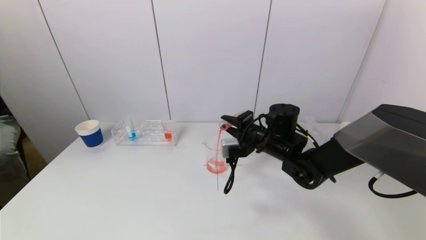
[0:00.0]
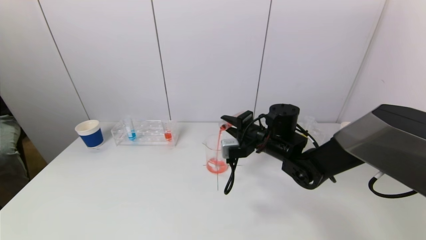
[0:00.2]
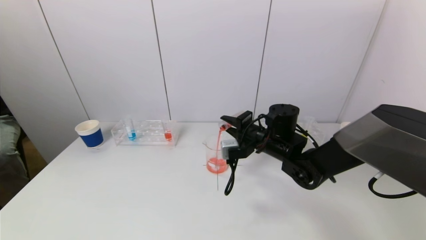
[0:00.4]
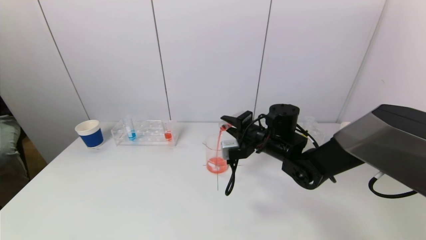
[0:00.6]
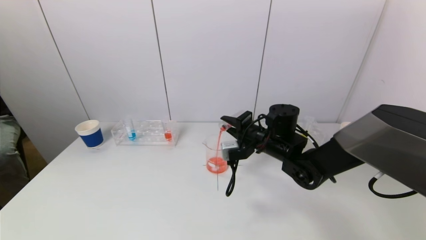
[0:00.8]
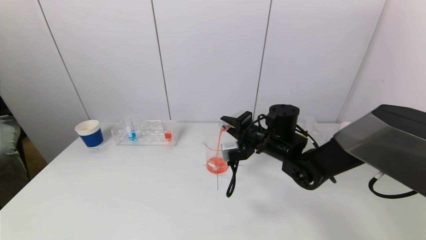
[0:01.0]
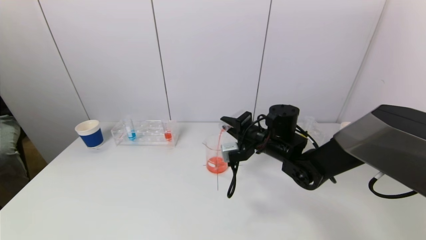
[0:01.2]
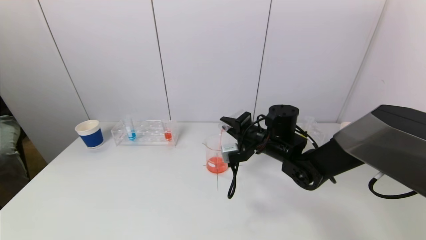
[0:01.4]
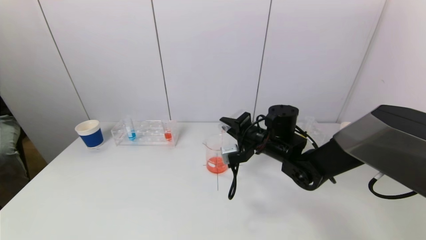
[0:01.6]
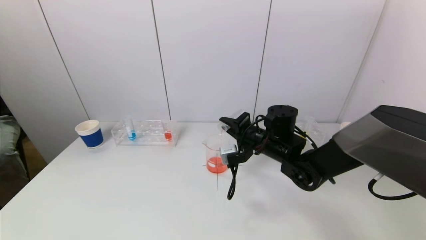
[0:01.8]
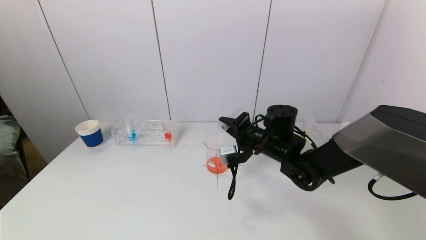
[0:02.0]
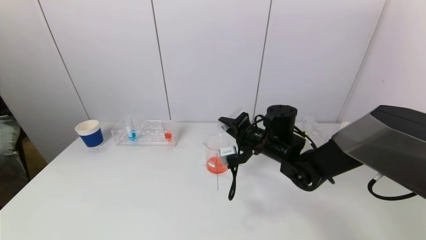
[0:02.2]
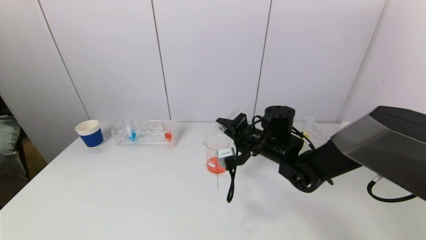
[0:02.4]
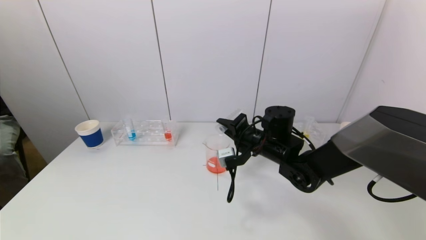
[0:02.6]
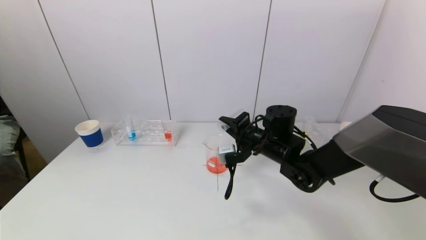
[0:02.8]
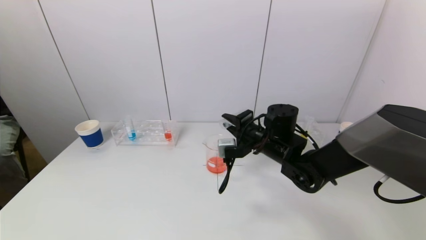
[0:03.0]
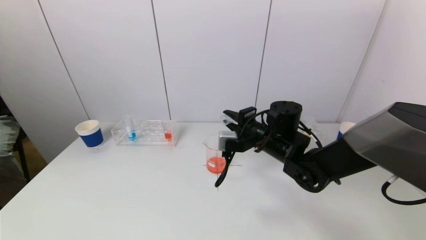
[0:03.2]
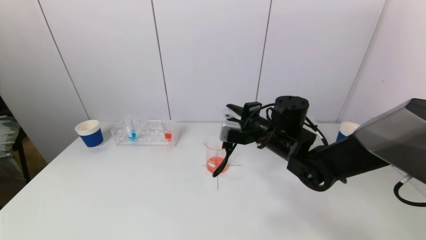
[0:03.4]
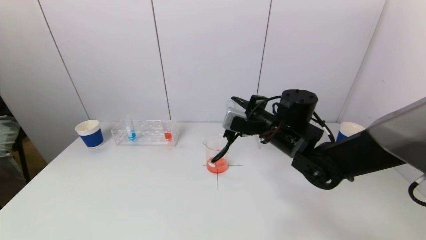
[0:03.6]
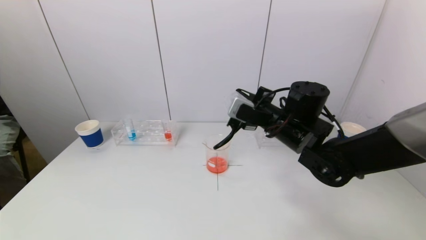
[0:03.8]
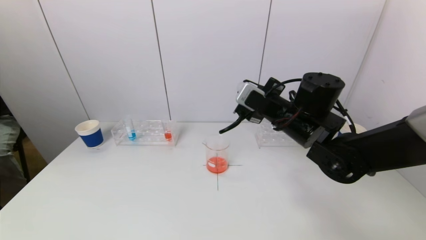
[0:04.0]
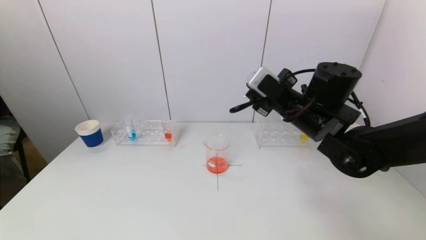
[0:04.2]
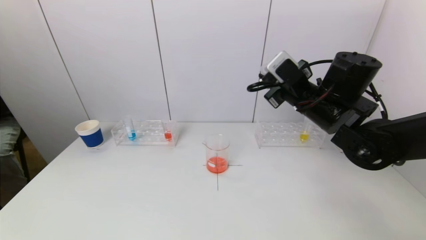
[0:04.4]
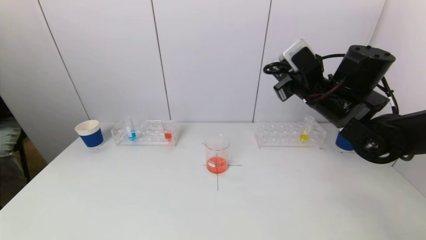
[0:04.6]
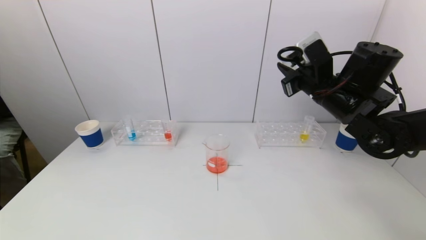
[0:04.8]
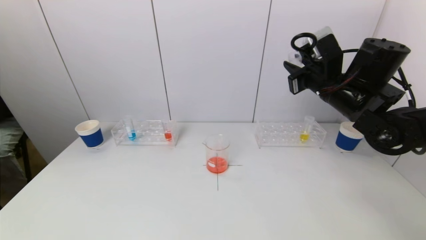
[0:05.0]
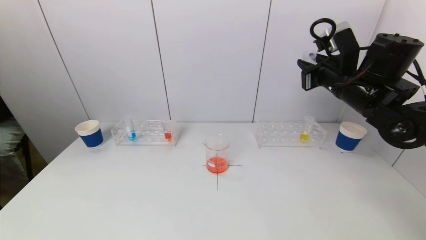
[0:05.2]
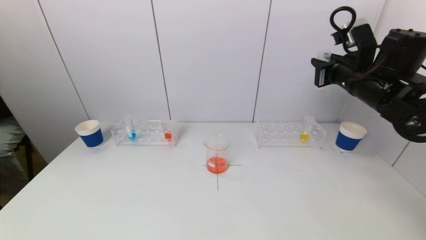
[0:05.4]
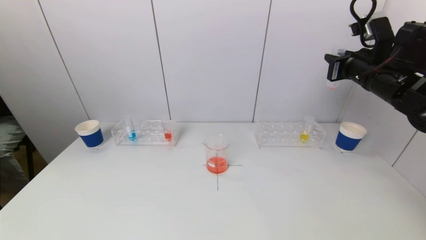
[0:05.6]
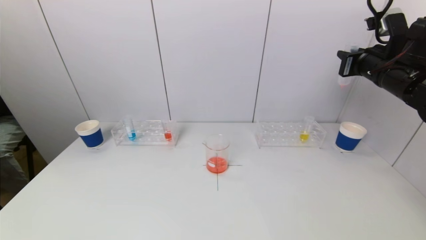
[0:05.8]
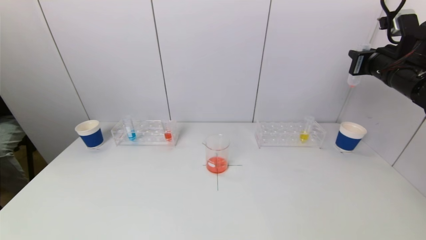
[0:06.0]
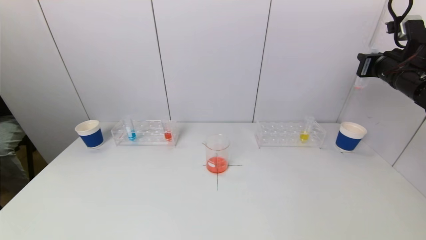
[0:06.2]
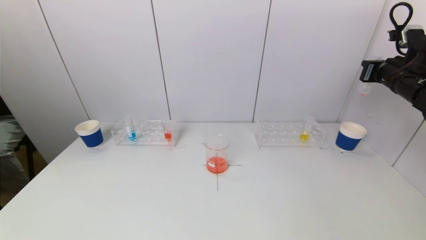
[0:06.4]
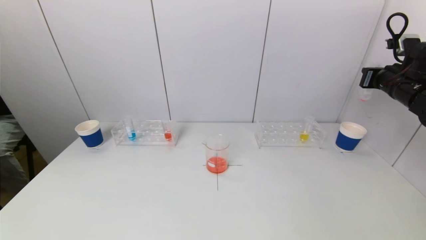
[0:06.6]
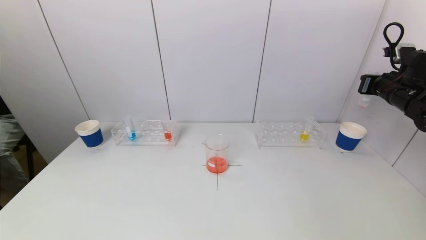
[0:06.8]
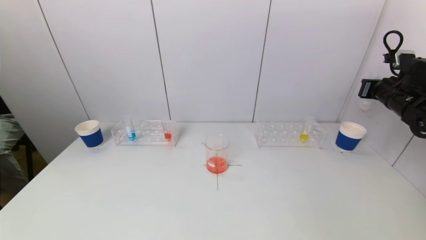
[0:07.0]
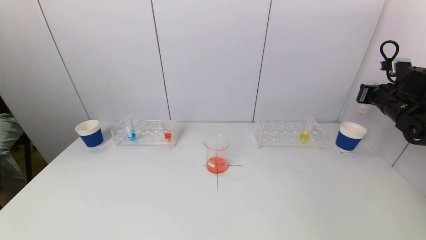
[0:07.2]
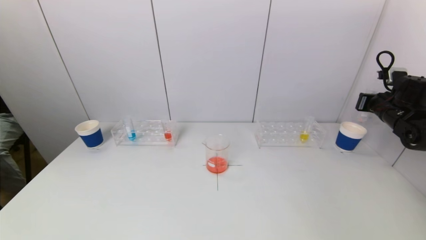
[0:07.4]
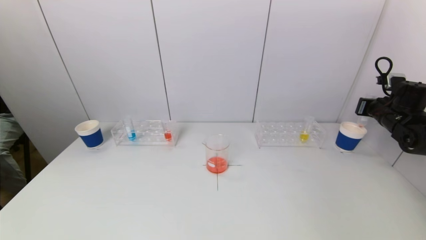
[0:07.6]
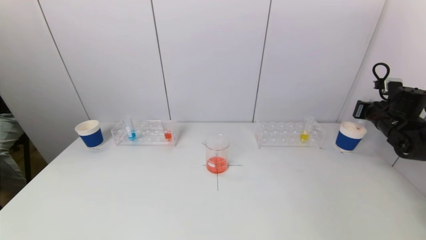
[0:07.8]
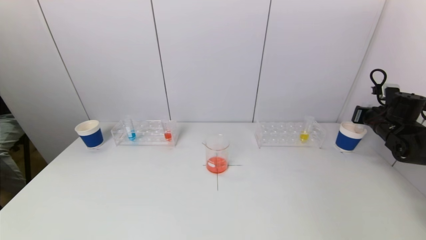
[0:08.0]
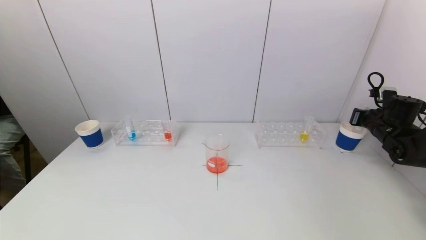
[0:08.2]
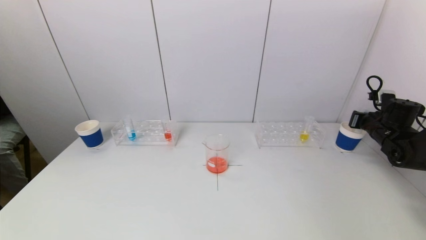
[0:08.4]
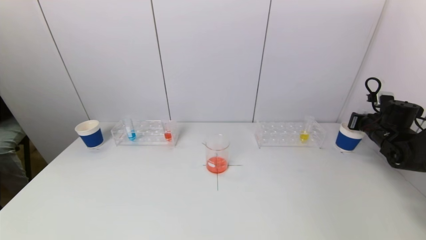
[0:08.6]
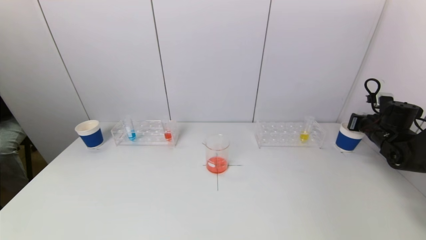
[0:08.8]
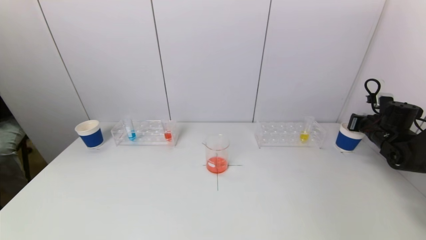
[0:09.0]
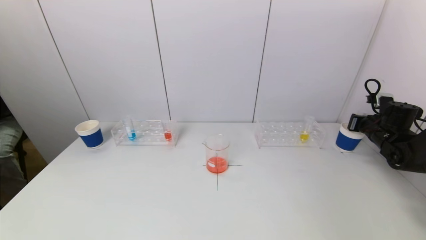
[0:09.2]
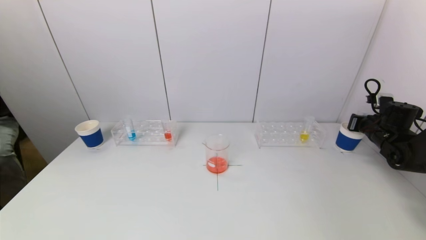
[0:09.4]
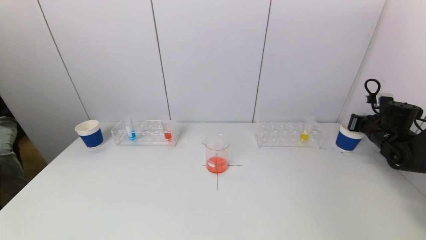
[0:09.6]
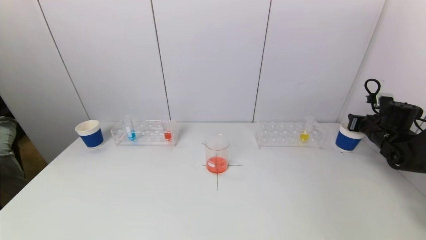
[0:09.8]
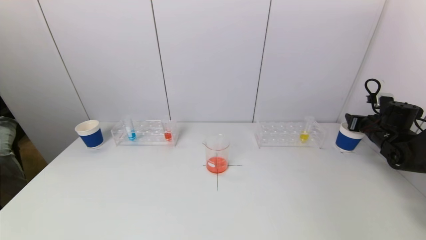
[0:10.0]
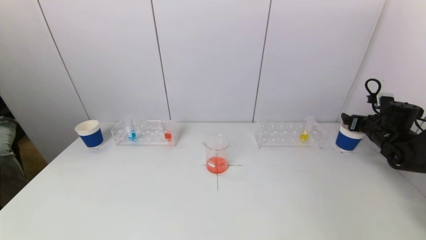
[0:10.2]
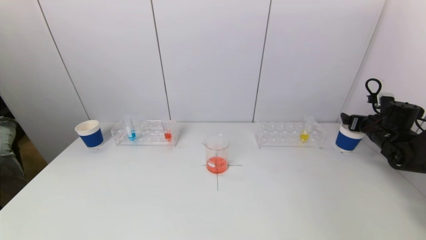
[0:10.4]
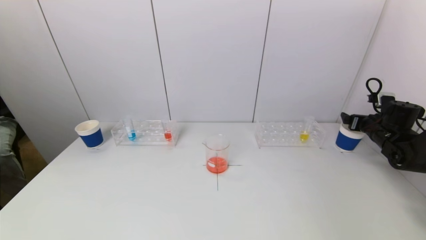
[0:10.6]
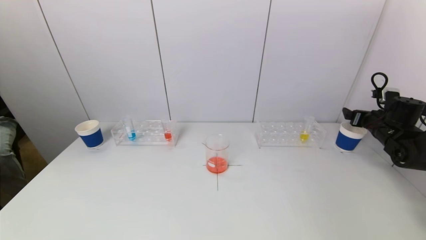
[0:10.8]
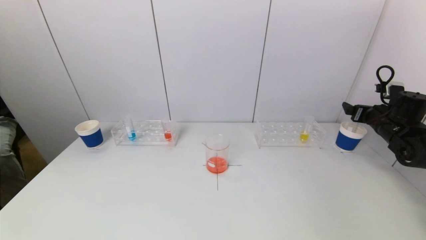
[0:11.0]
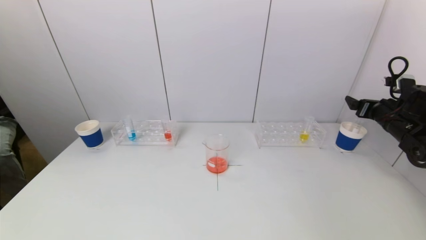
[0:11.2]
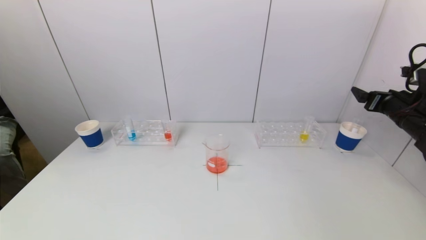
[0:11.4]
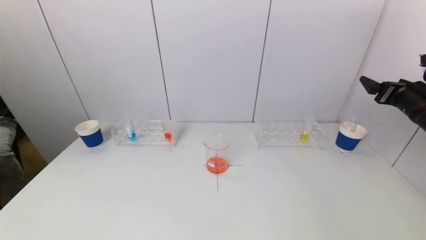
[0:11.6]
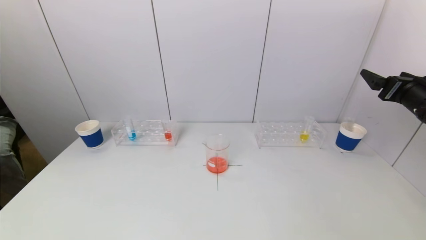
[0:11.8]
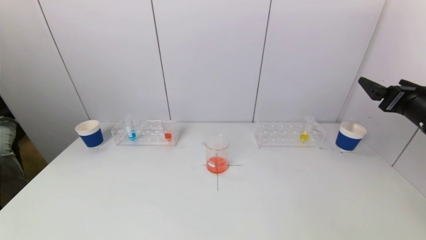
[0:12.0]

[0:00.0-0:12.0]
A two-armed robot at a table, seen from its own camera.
Task of the whole recording: pick up a test tube with pigment on left test tube rack and a test tube with pigment on right test tube rack by grippers and pour them into the beaker.
Step, 0:00.0 to 0:02.6: Pour the red reagent into the graduated cylinder with the right gripper.
Step, 0:02.8 to 0:10.6: Place the test tube into the paper cup with the right gripper.
0:00.0 to 0:03.0: The grippers stay close to where they were, moving slightly.
0:03.0 to 0:04.4: The right gripper heads upward and to the right, covering about 15 cm.
0:04.4 to 0:06.0: The right gripper goes about 15 cm to the right.
0:06.0 to 0:07.6: The right gripper goes about 15 cm downward and to the right.
0:07.6 to 0:09.0: The right gripper goes approximately 5 cm downward.
0:10.4 to 0:12.0: The right gripper shifts some 20 cm backward, upward and to the left.

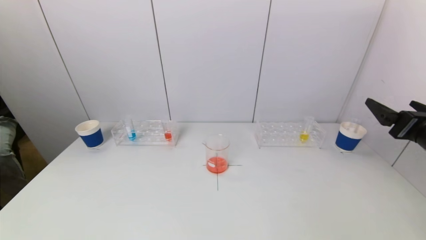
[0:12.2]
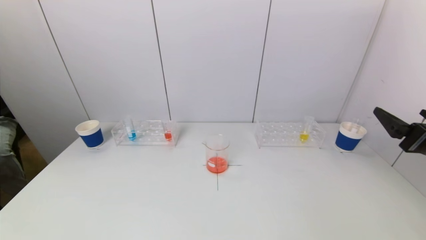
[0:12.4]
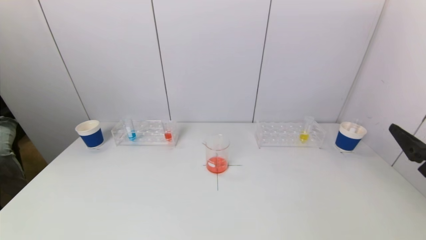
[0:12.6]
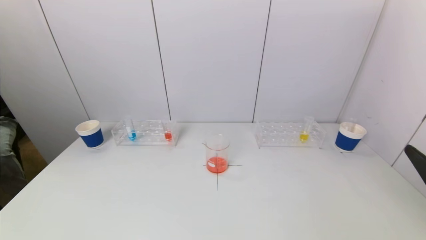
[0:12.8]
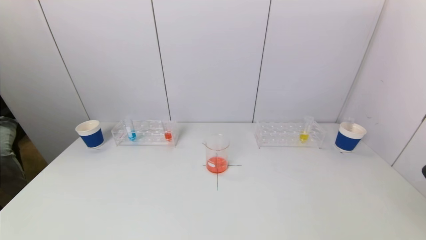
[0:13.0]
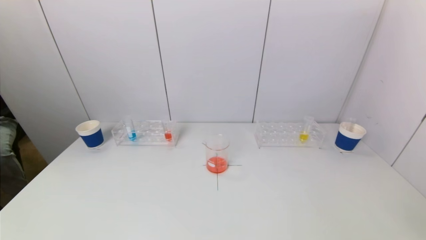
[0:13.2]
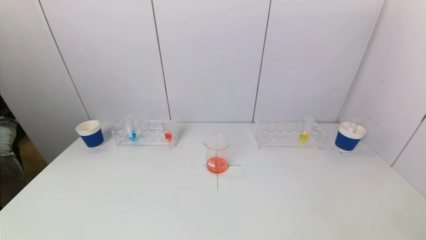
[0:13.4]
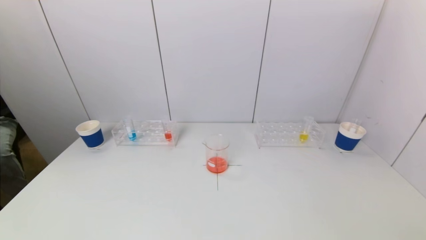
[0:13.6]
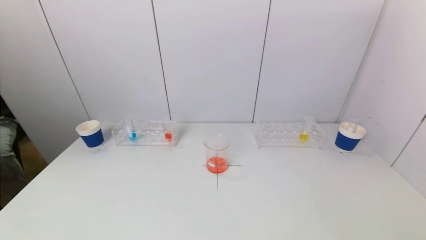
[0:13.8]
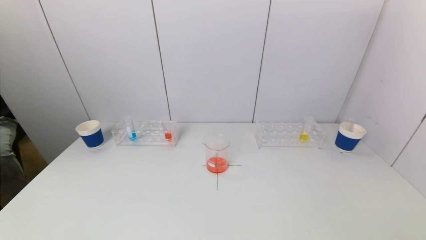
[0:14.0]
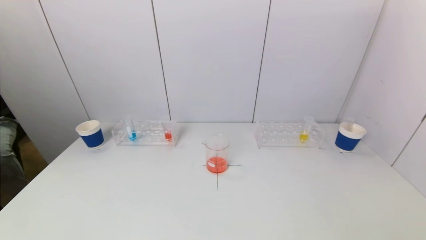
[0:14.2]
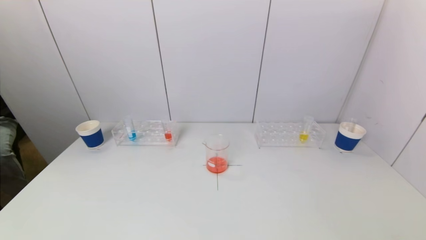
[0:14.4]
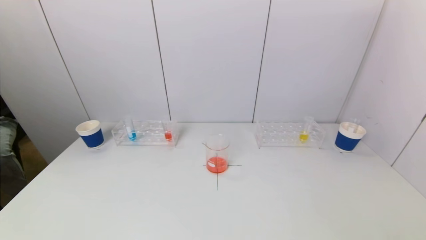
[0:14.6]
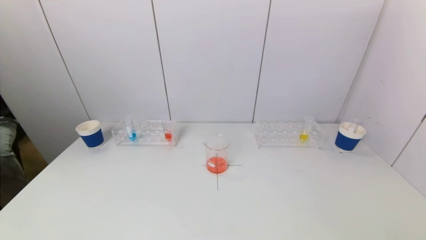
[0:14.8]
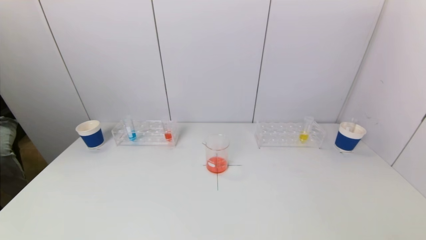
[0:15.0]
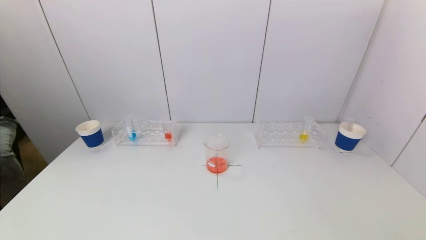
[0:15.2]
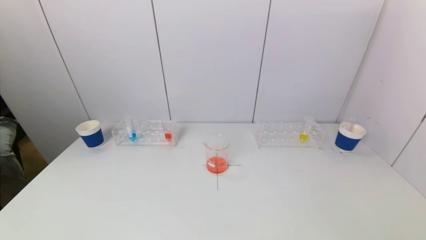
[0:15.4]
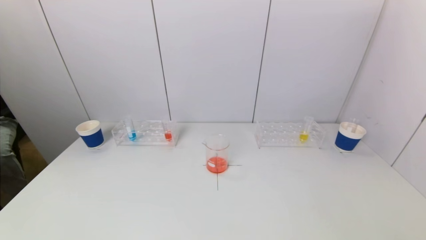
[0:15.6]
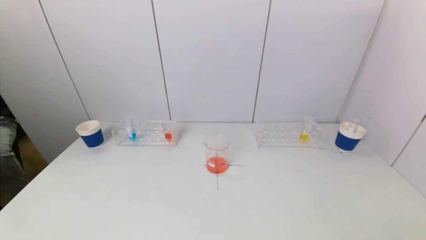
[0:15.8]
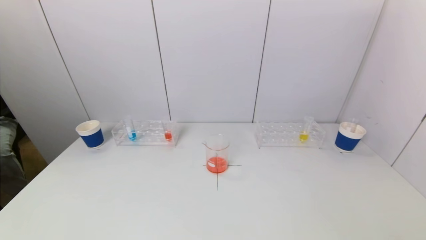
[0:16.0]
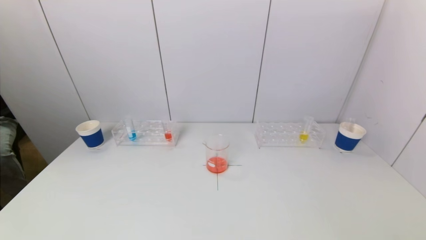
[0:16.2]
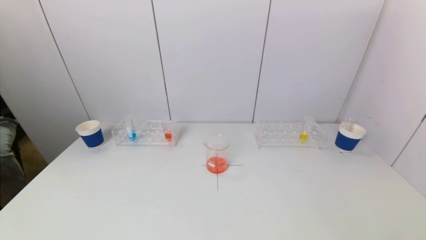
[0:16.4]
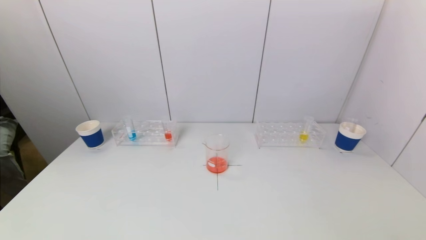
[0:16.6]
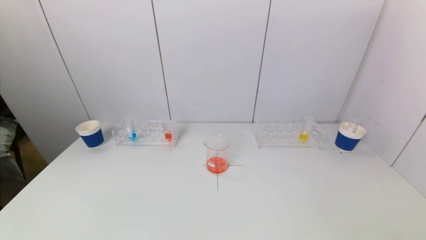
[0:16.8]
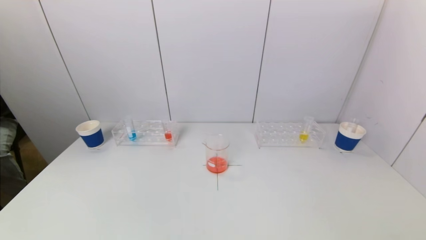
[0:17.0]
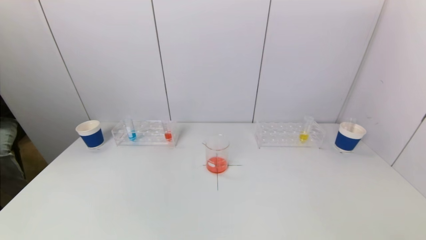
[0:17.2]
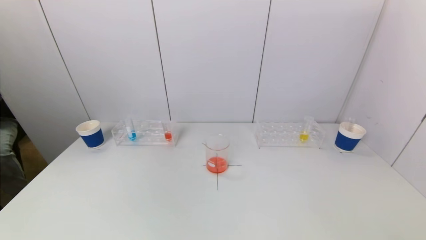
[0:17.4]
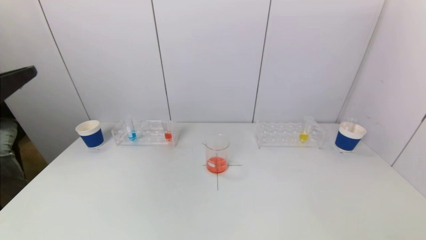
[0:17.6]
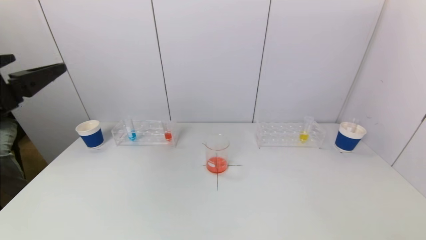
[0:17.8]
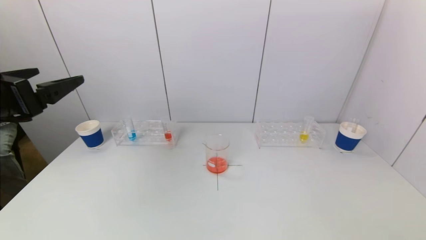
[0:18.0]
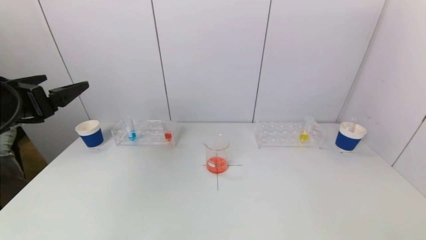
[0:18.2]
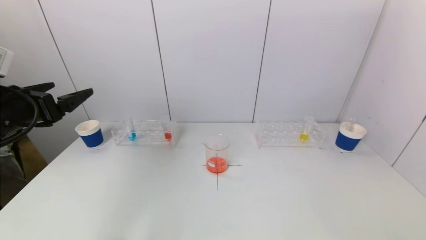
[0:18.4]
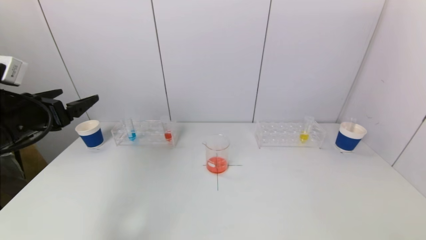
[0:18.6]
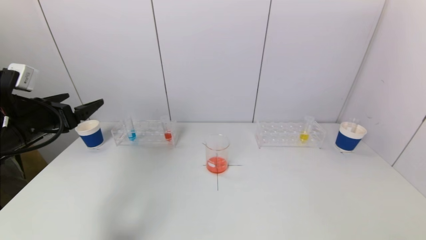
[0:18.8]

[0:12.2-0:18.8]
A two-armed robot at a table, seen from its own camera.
Task of the whole recording: pick up a test tube with pigment on left test tube rack and a test tube with pigment on right test tube rack by grippers and pour them into the beaker.
0:12.2 to 0:13.8: The right gripper heads backward and downward, covering approximately 25 cm.
0:17.2 to 0:18.8: The left gripper heads forward, covering roughly 25 cm.
